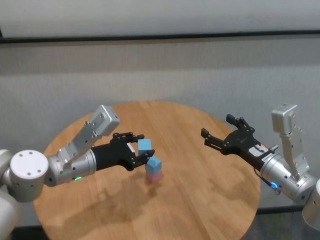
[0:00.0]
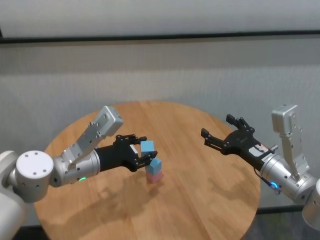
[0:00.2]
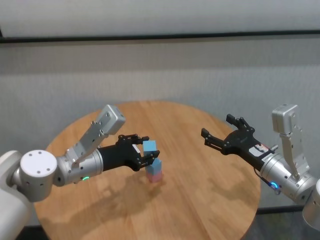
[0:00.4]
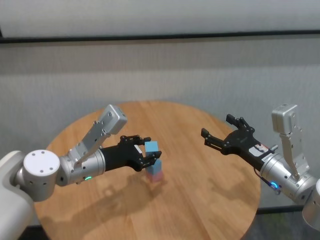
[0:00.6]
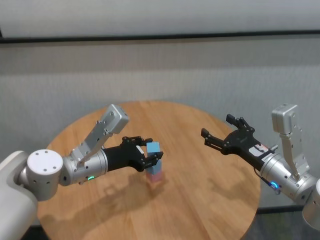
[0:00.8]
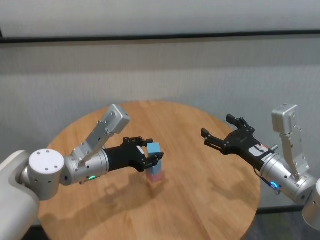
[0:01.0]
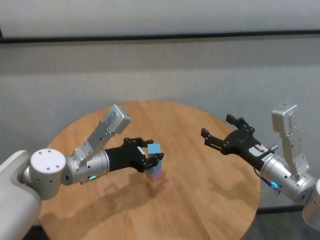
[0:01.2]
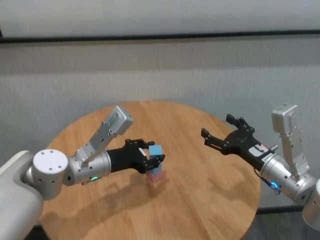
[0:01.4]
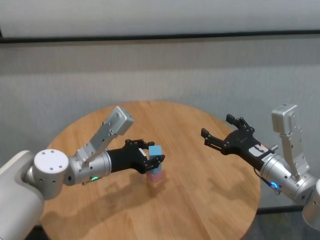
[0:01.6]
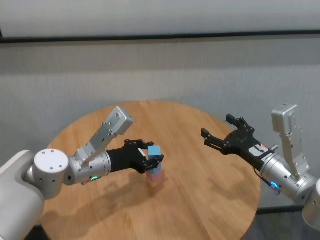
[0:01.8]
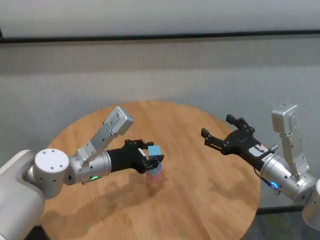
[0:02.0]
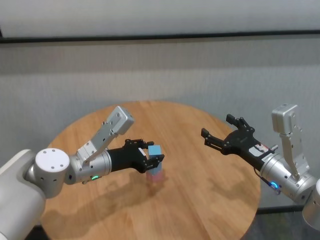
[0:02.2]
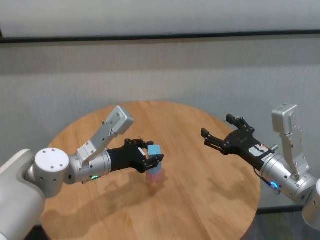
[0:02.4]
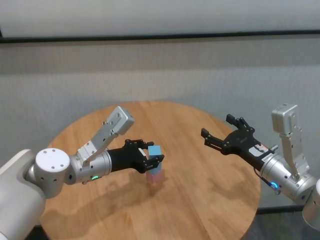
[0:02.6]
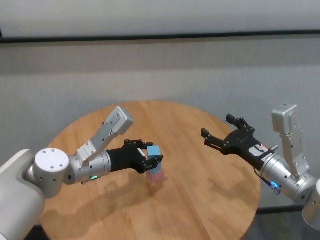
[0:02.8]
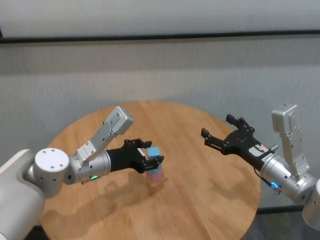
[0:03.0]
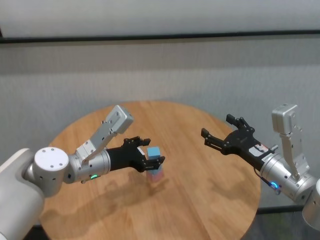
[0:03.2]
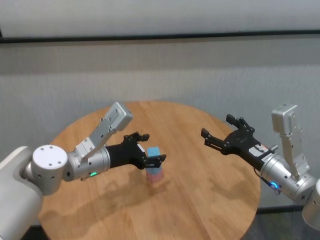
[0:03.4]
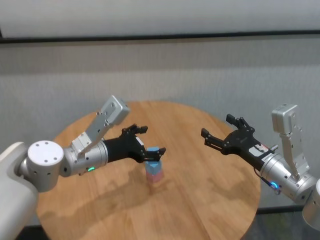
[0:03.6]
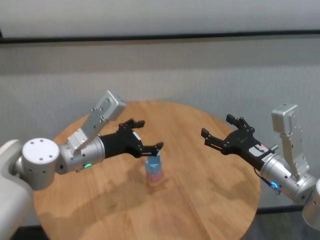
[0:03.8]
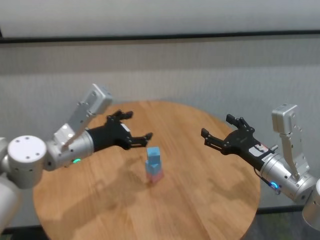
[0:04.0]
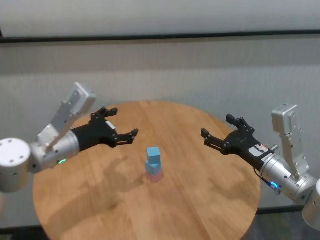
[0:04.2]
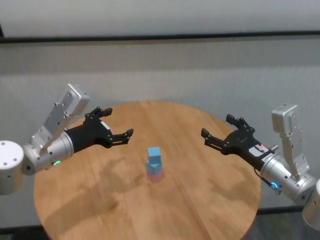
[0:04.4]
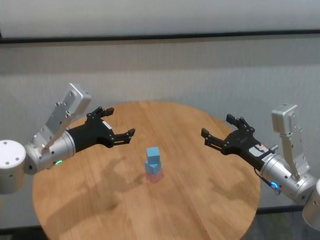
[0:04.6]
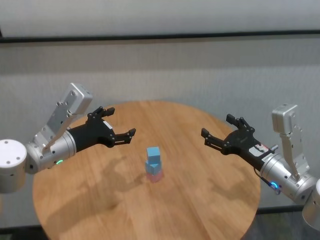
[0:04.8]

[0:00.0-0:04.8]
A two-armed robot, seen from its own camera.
Task of the whole recording: stack building blocks on the table.
Step, 0:00.0 to 0:03.0: Place the blue building block on the blue building blocks with left gripper.

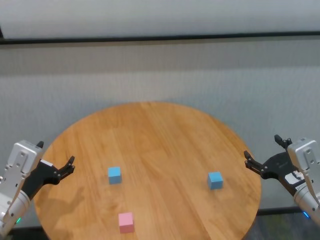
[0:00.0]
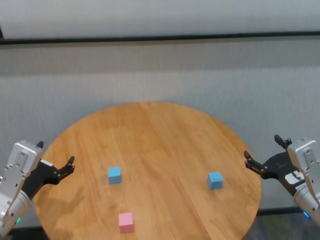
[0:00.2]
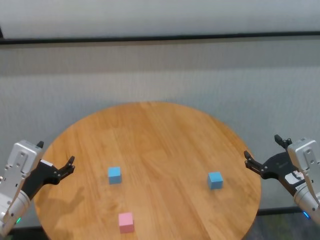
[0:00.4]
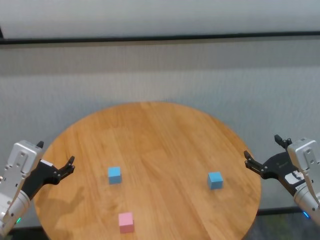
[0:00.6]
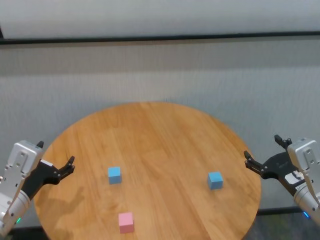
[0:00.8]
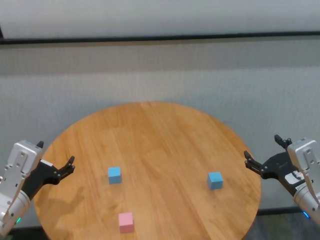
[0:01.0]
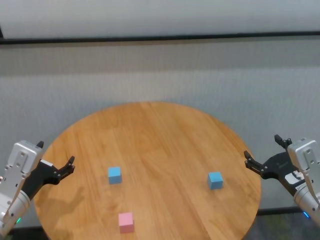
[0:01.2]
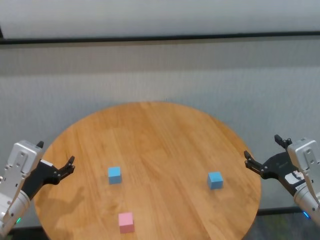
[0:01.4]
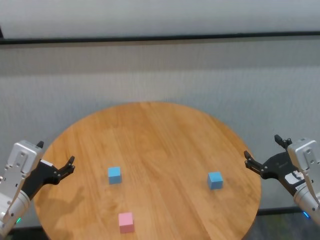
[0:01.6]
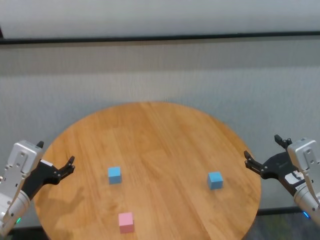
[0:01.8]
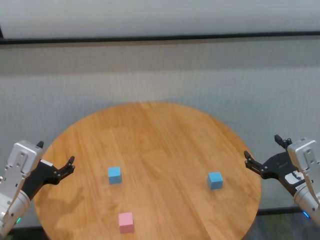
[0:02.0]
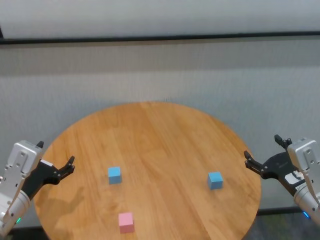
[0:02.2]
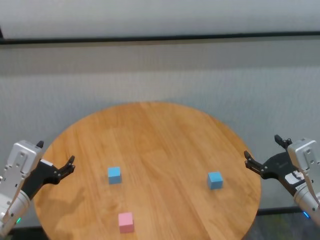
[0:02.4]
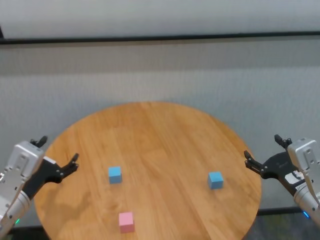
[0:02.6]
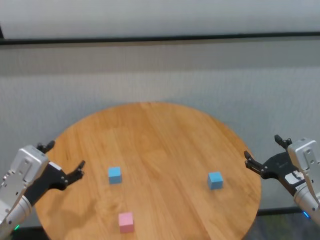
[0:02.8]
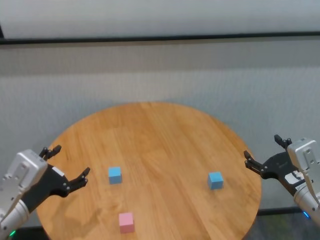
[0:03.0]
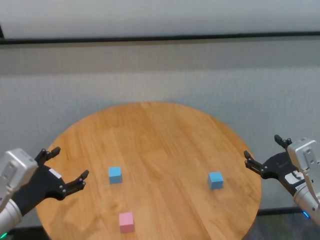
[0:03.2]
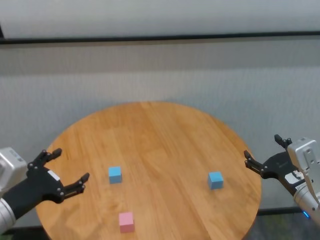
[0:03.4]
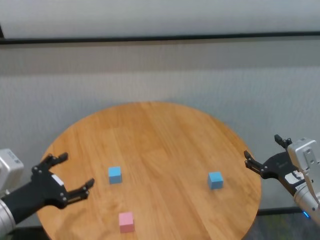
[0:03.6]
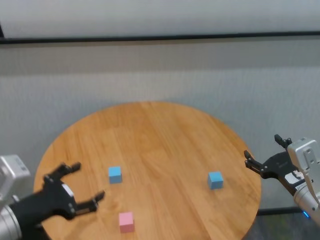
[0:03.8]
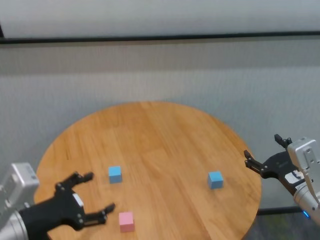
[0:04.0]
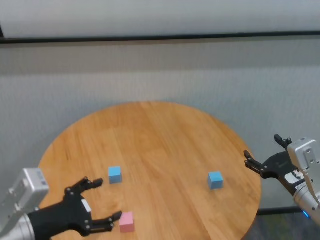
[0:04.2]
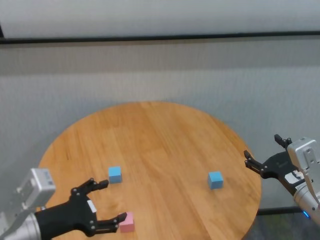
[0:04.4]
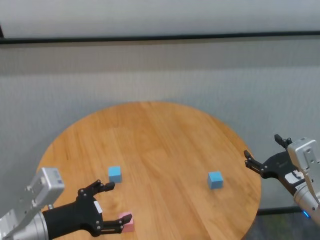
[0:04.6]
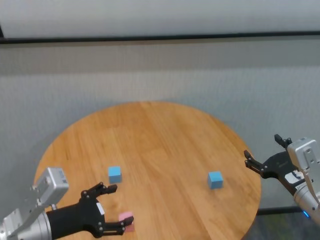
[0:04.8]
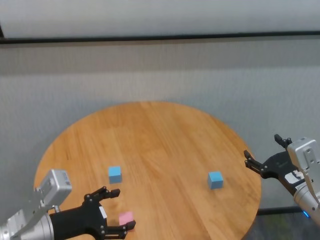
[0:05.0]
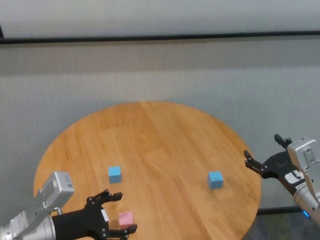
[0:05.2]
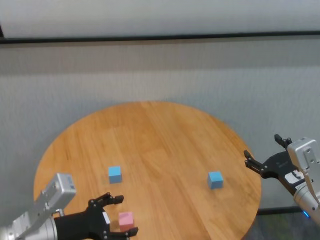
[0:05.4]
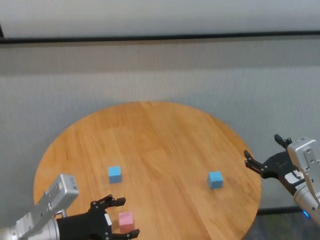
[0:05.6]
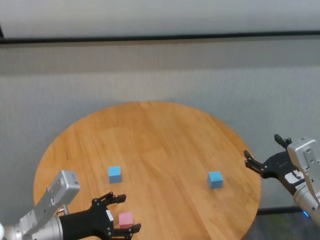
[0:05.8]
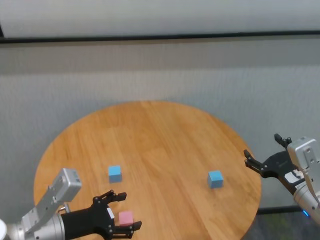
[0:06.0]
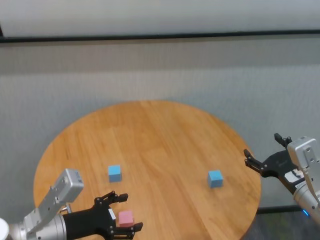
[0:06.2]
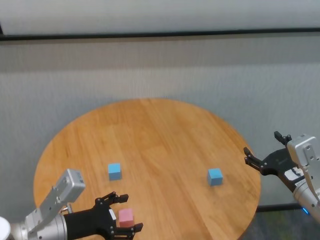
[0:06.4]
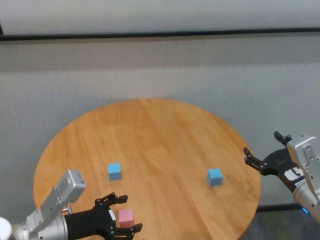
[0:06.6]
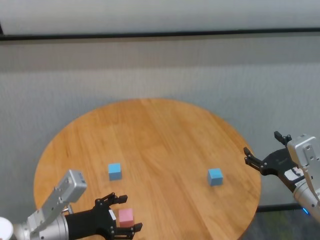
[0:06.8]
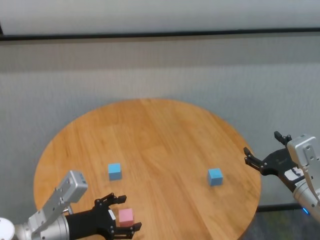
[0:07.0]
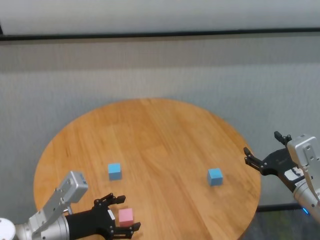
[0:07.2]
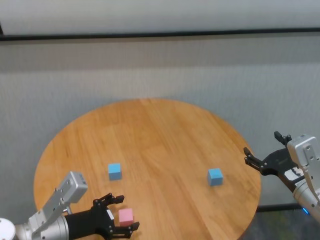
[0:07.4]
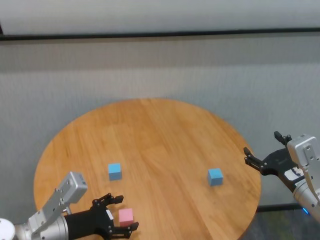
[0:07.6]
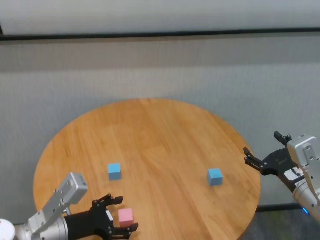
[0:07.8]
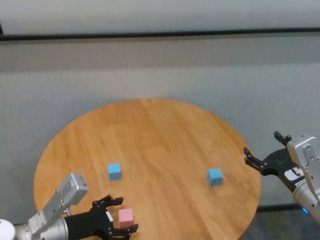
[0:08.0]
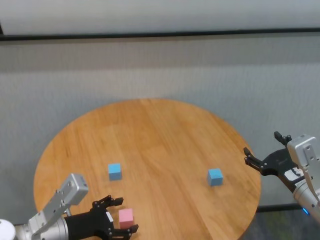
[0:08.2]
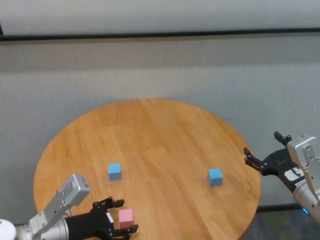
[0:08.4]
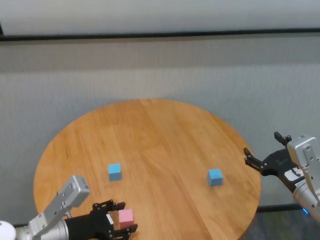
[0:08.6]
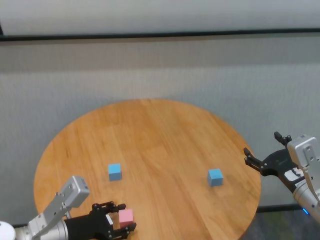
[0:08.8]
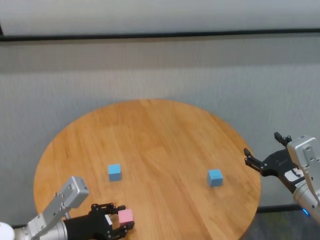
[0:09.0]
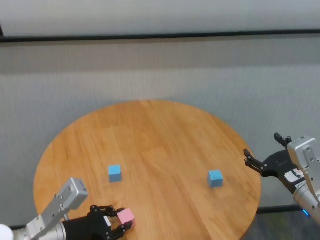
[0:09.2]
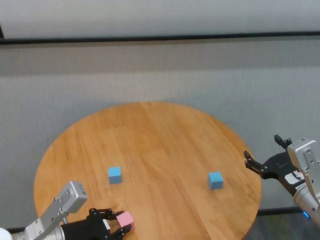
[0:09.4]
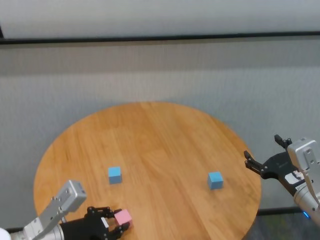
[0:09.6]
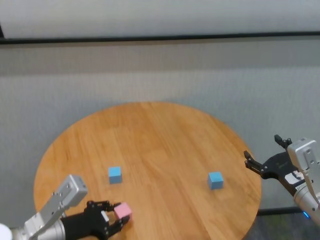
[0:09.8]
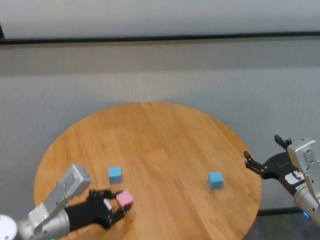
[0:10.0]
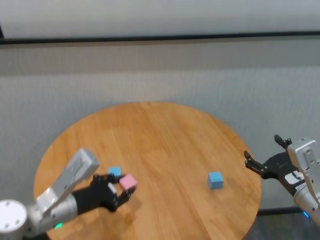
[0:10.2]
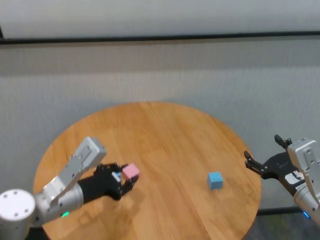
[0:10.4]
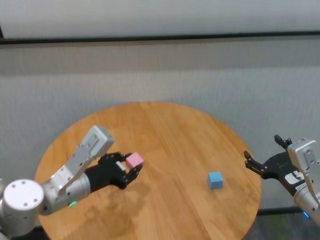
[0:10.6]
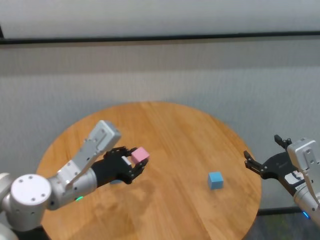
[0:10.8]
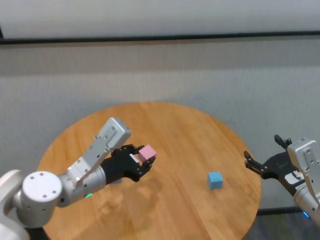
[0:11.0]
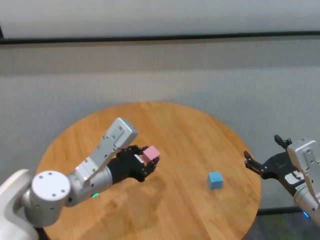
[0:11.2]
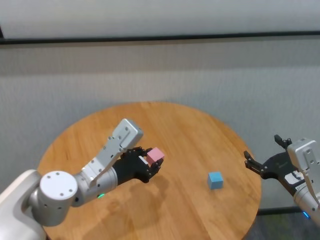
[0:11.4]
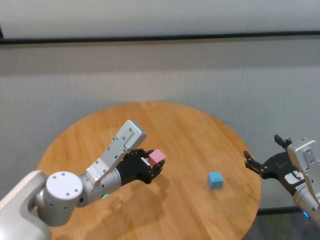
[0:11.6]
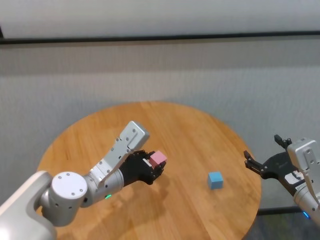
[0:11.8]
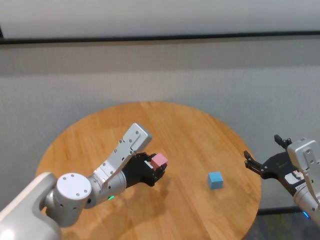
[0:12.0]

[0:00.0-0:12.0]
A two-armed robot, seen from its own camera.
Task of the whole recording: stack building blocks on the table.
Step, 0:00.0 to 0:09.0: Grasp the pink building block with left gripper.

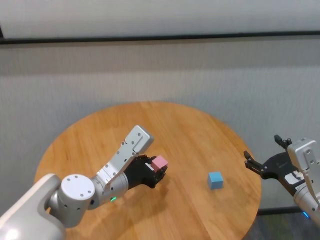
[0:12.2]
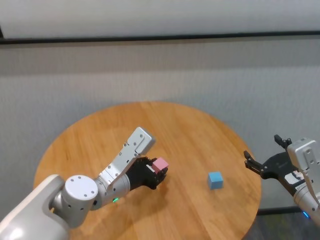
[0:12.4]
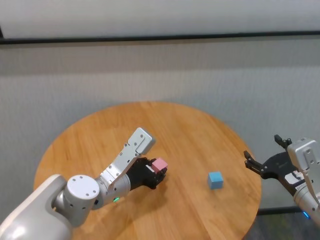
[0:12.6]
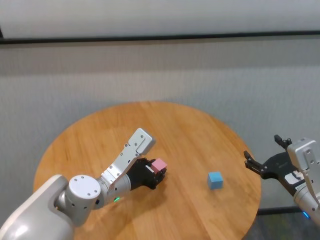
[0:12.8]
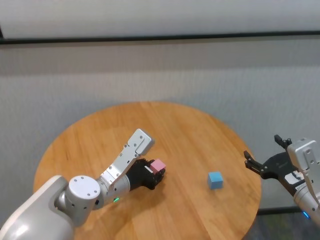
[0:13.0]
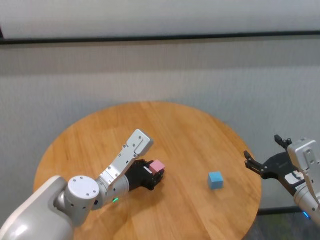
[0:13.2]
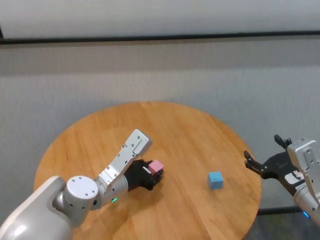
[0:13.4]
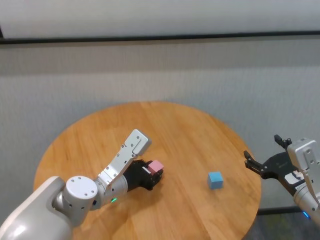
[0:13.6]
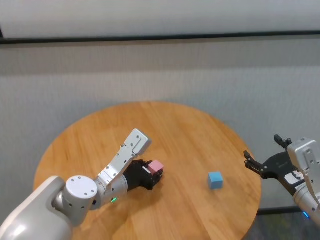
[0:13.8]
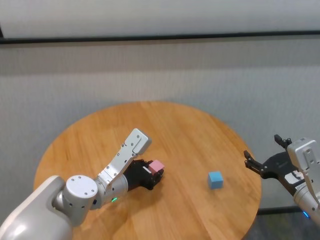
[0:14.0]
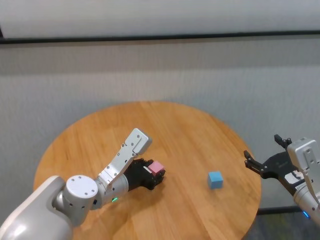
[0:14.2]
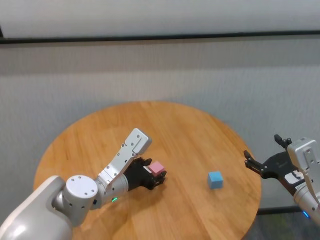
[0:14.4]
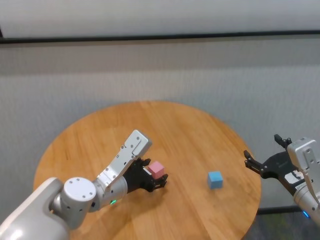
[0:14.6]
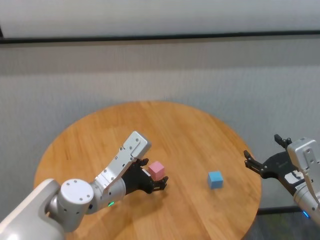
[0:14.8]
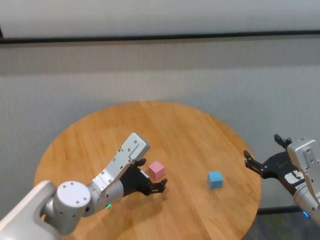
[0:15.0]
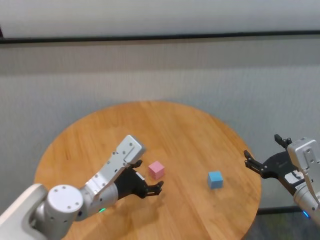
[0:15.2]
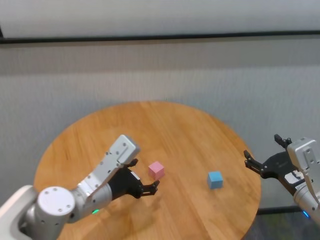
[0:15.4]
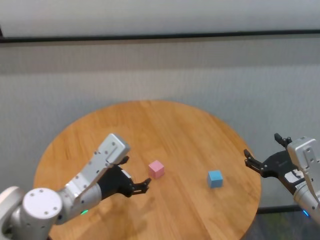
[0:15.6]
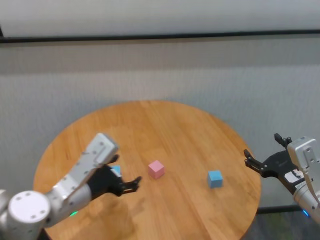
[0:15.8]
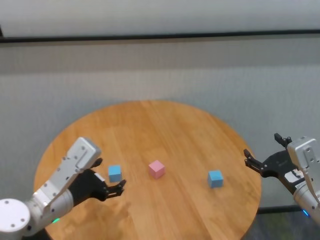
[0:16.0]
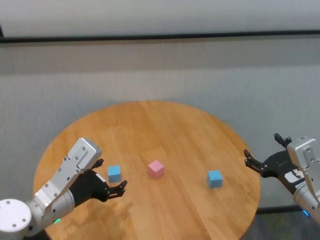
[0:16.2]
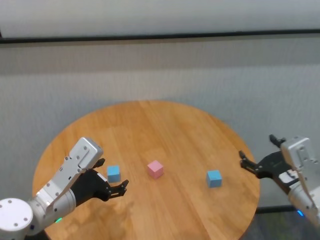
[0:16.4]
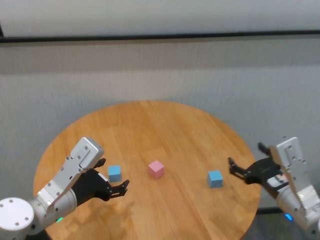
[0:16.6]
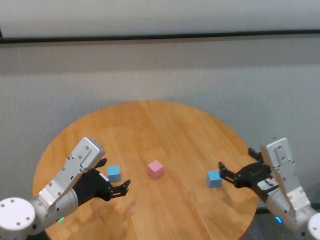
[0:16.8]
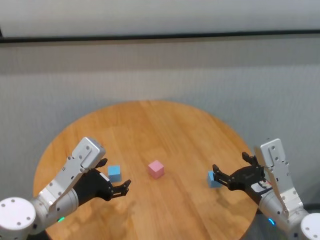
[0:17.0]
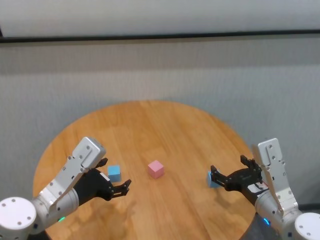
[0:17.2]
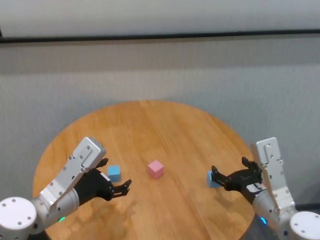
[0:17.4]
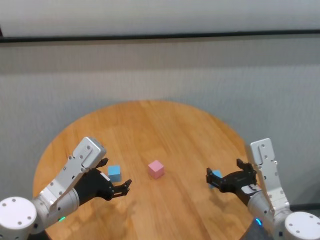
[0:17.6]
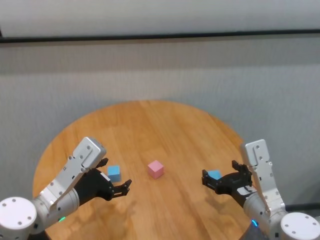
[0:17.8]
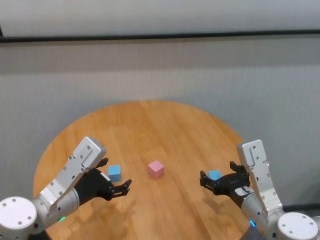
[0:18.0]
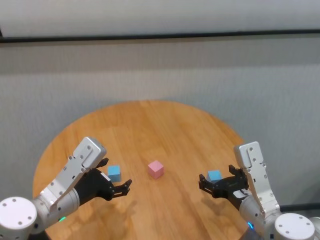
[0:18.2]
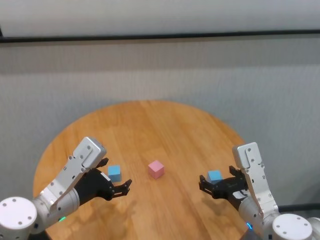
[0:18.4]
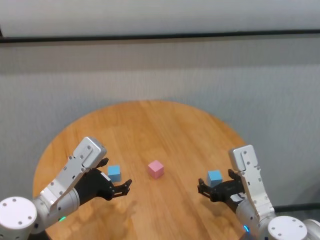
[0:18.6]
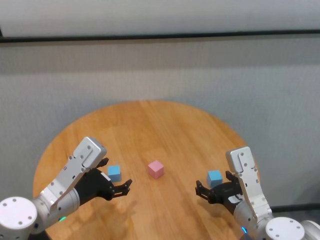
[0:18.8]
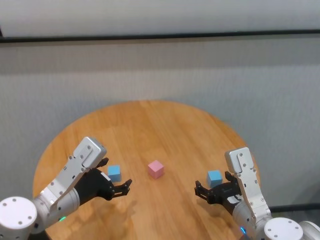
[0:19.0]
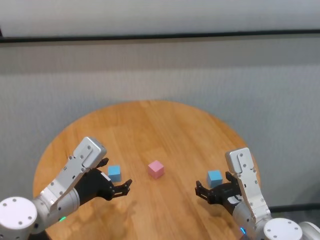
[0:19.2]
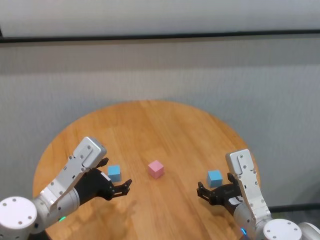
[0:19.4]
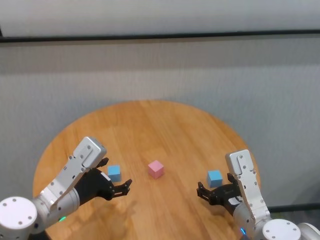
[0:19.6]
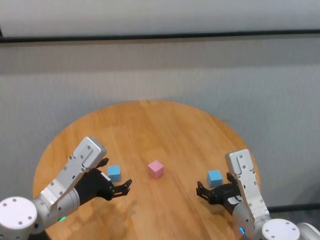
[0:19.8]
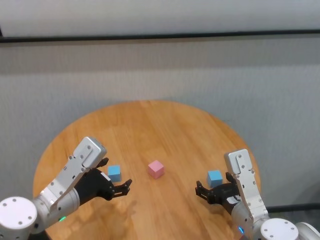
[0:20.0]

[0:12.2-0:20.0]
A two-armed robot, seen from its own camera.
Task of the whole recording: stack building blocks on the table.
Step, 0:12.2 to 0:14.4: Place the pink building block in the center of table with left gripper.
